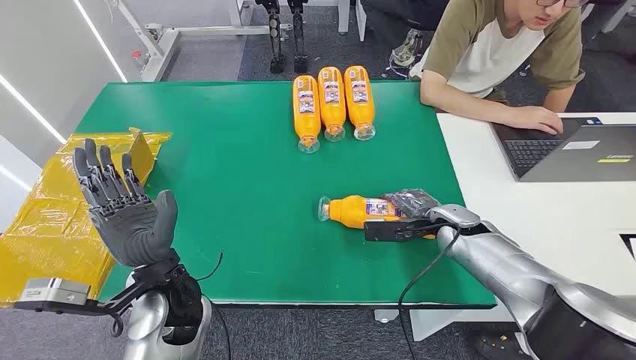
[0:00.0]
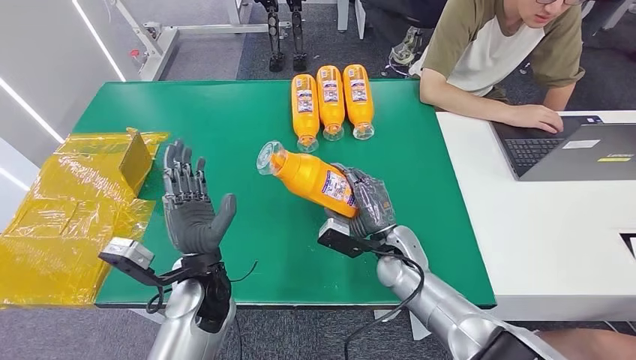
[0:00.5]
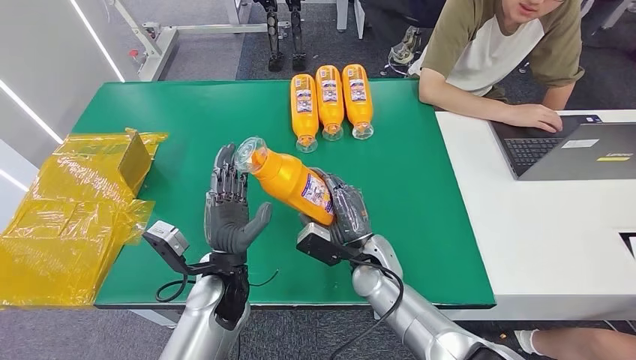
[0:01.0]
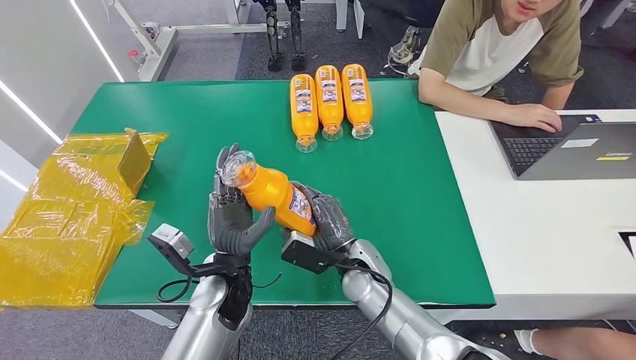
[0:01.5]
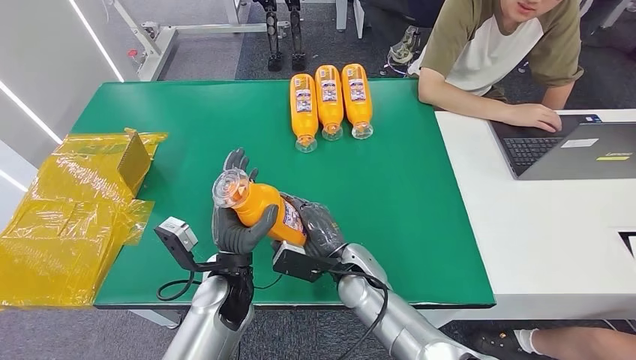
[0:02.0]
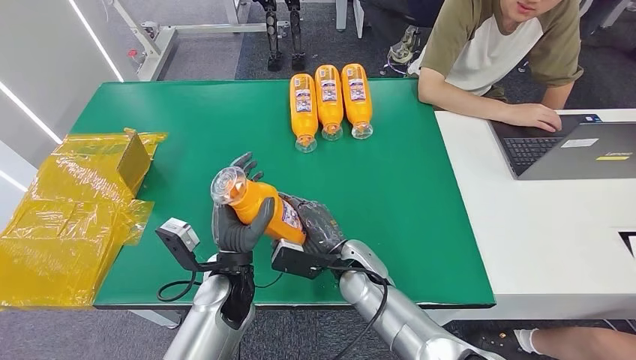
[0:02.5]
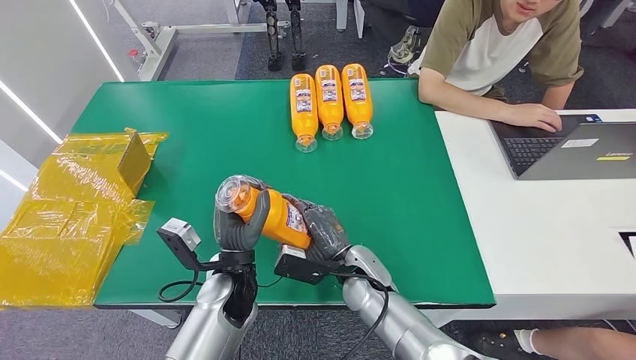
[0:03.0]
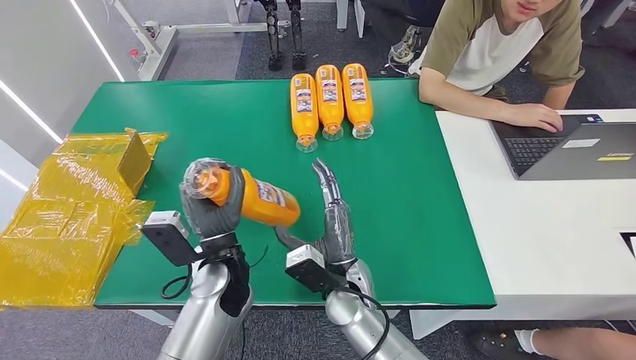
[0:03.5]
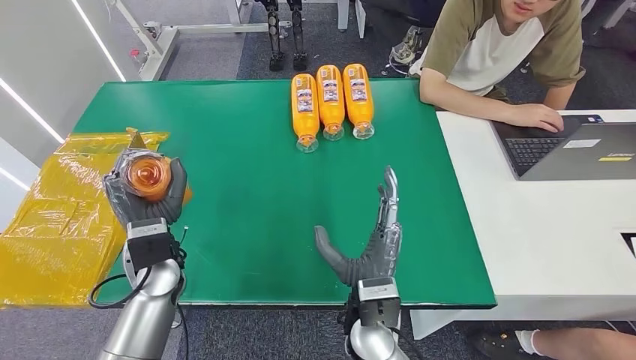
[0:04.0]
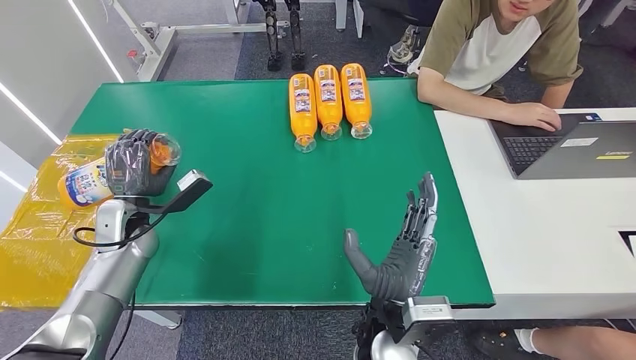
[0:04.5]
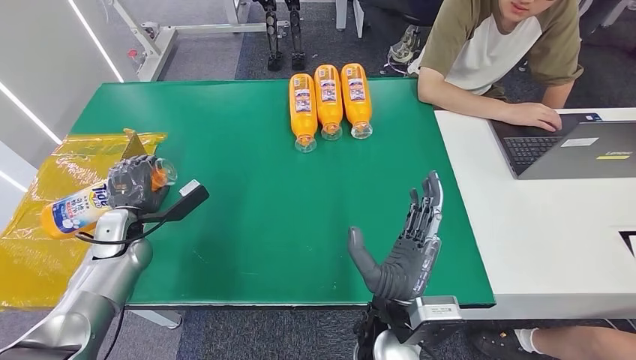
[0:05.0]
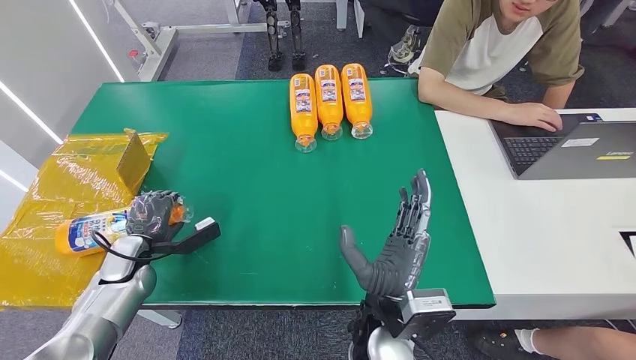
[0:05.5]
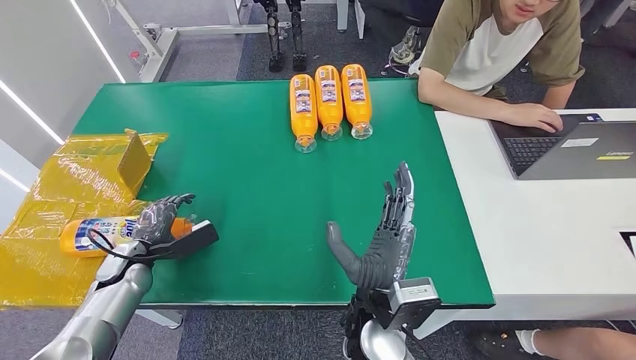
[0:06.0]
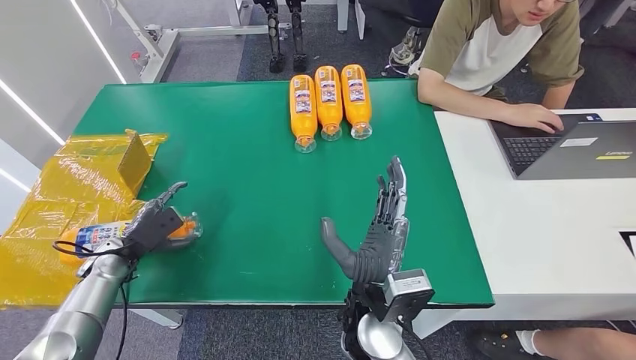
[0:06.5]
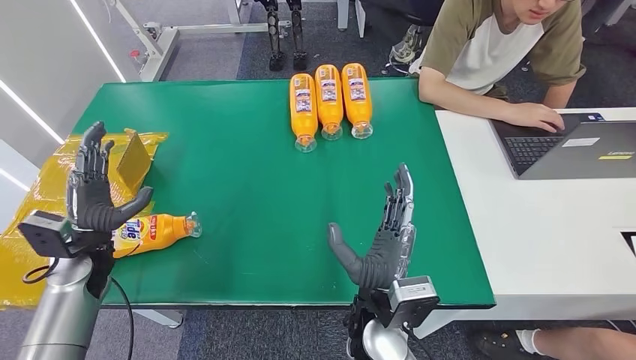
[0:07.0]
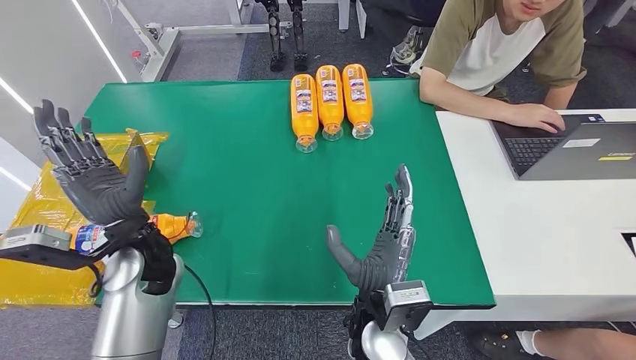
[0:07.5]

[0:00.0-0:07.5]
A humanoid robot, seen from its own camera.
Step, 0:00.0 to 0:01.5: Pick up the bottle from the table.
Step, 0:02.0 to 0:07.5: Turn the bottle to the front side.
0:02.0 to 0:04.0: The right hand shifts roughly 10 cm backward. The left hand travels to the left by some 10 cm.
0:04.0 to 0:05.5: The left hand travels to the left and downward by some 15 cm.
0:05.5 to 0:07.5: The left hand travels to the right and upward by some 20 cm.
